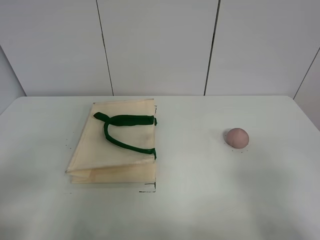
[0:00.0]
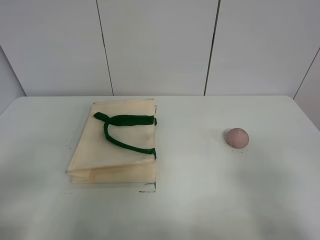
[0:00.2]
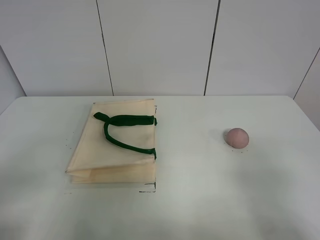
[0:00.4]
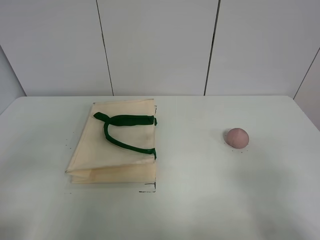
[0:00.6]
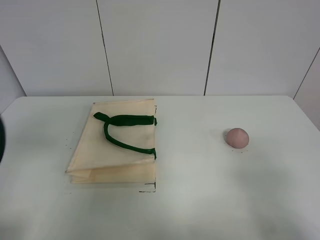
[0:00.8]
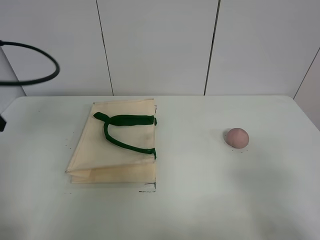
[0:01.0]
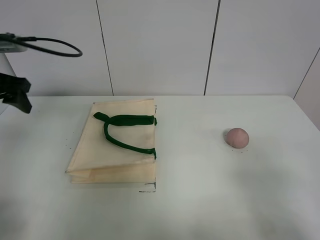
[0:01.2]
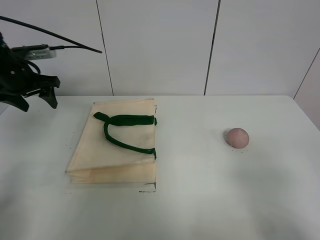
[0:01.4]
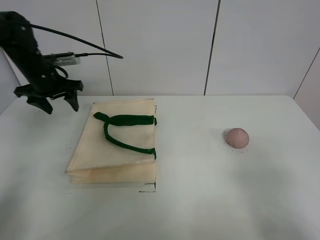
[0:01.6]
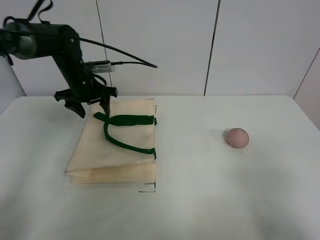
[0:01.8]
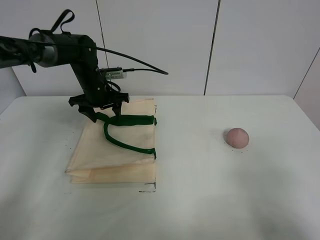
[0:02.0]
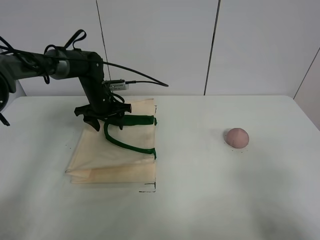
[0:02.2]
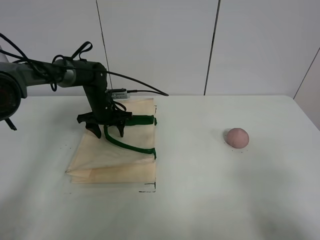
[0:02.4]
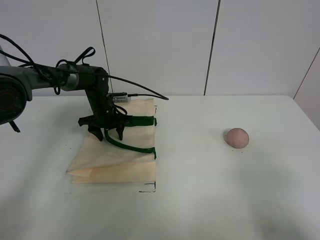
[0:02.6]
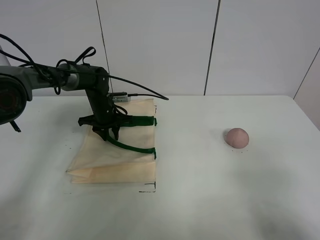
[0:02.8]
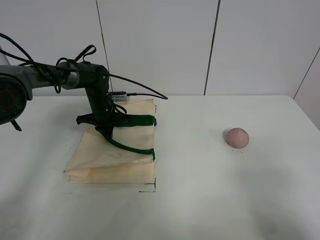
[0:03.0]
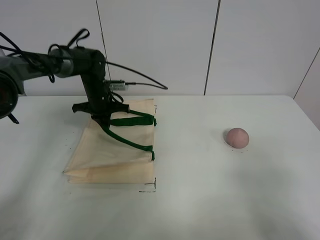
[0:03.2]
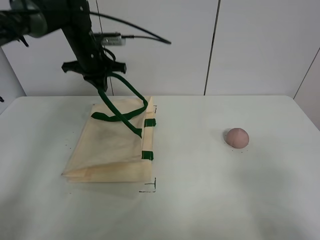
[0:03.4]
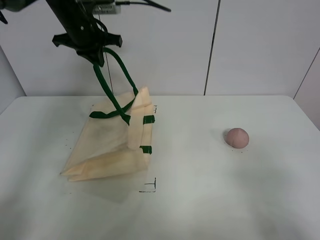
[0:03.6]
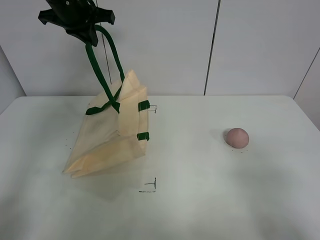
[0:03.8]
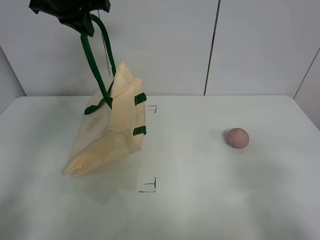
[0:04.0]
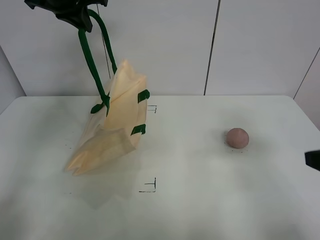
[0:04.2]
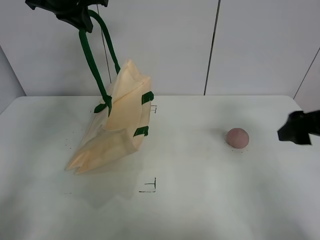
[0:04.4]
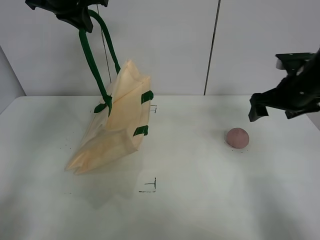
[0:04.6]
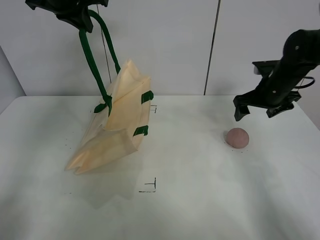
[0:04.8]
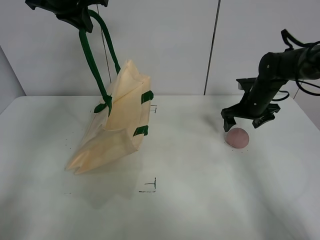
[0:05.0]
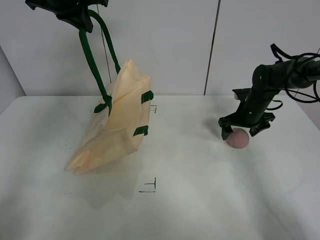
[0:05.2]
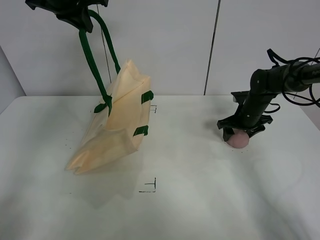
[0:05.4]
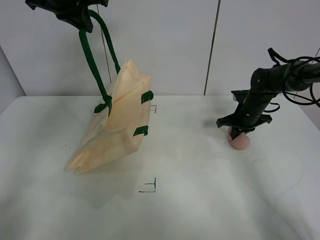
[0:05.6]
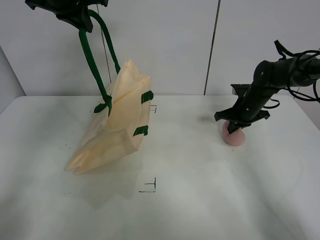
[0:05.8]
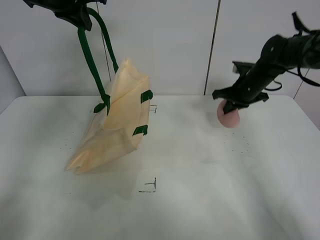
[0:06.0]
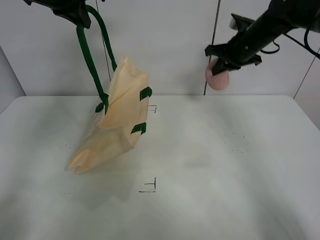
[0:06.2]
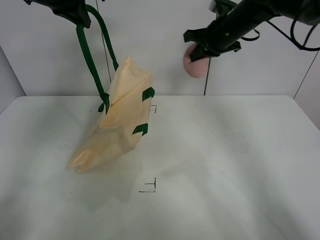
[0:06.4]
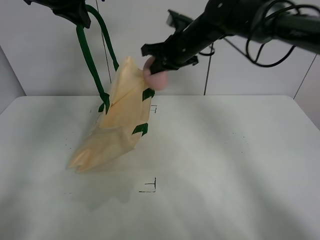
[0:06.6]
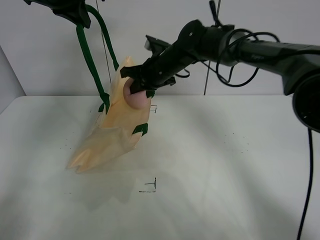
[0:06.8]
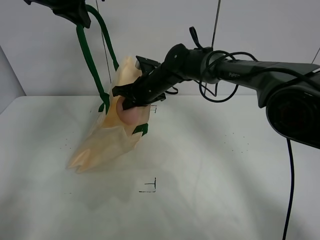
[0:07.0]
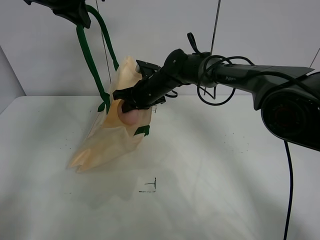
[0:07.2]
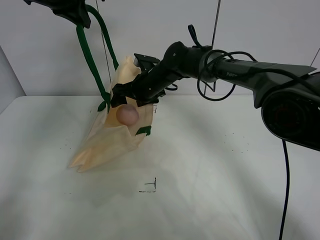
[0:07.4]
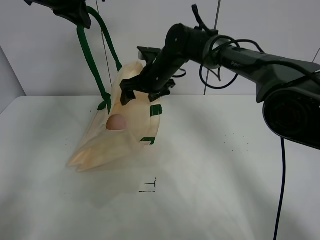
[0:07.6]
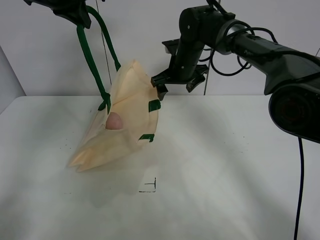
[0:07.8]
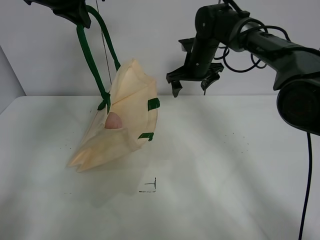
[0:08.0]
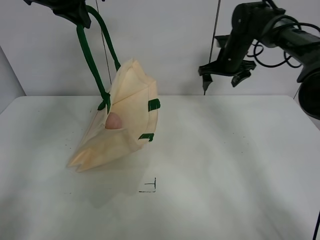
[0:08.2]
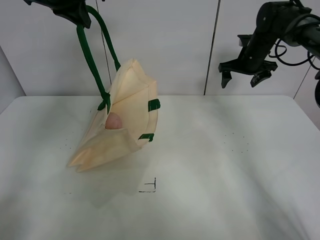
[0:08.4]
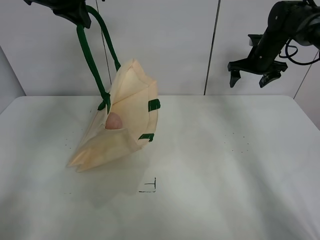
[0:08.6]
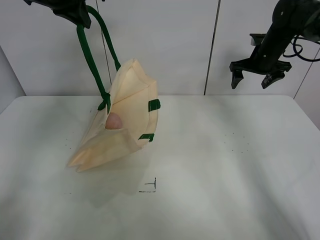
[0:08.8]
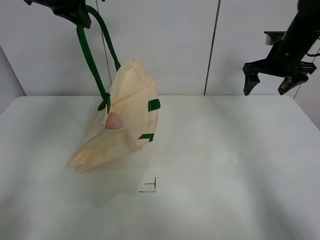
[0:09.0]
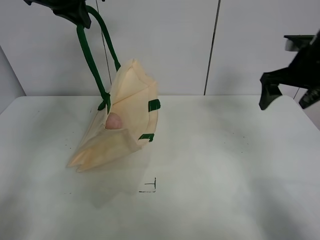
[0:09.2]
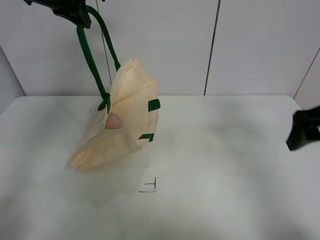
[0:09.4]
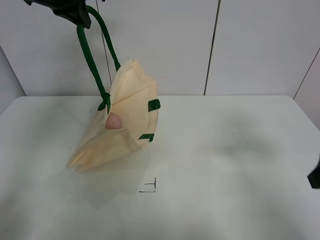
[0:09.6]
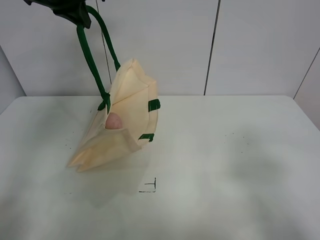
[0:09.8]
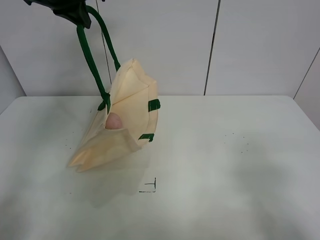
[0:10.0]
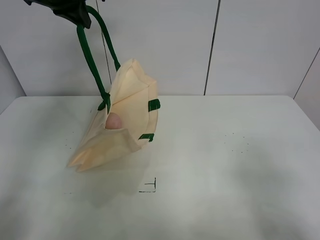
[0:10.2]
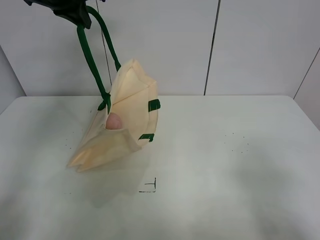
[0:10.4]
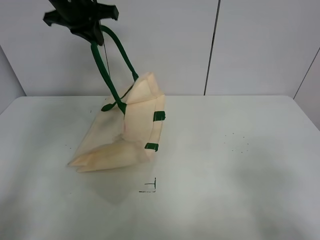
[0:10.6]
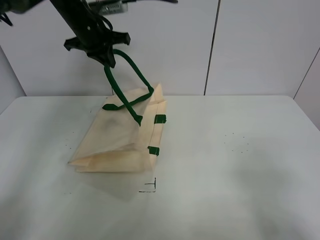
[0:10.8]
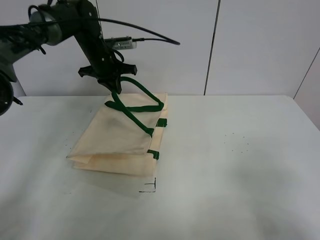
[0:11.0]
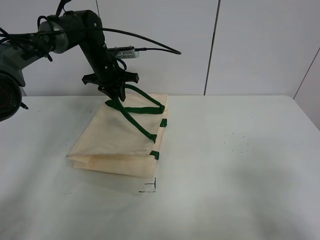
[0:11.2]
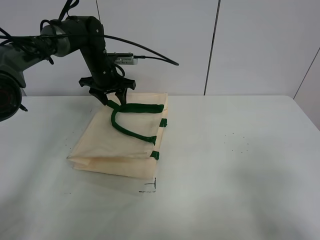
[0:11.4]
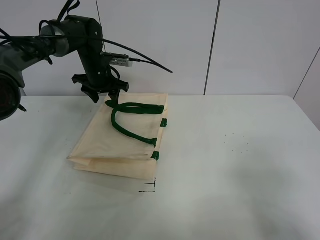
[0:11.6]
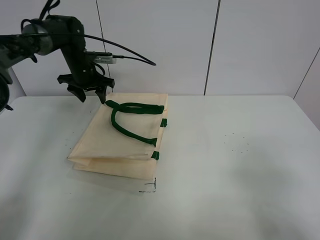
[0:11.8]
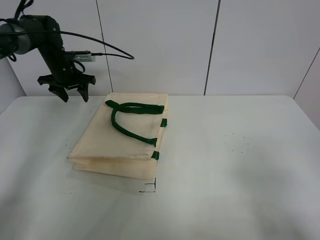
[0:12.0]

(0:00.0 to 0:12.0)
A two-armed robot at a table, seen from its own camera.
Task of the whole recording: open the white linen bag and put the peach in the bag.
Step, 0:00.0 - 0:03.6: Lift the handbag with left gripper.
Step, 0:03.8 - 0:05.6: Grasp the peach with right gripper.
Step, 0:05.8 - 0:07.8: Place the peach in the handbag with right gripper.
Step, 0:08.0 - 0:11.6: Put down the handbag with left gripper.
0:00.0 - 0:01.6: The left gripper is displaced forward by some 40 cm.
0:01.6 - 0:03.0: The left gripper moves downward and to the right, roughly 15 cm, and closes up.
0:03.0 - 0:04.4: The left gripper moves upward, approximately 30 cm; the right gripper moves forward, approximately 25 cm.
0:04.4 - 0:06.0: The right gripper goes about 20 cm forward, and closes its fingers.
0:06.0 - 0:07.6: The right gripper shifts about 20 cm to the left, and opens.
0:07.6 - 0:09.0: The right gripper is displaced to the right by approximately 25 cm.
0:09.0 - 0:10.4: The right gripper is displaced backward by approximately 40 cm.
0:10.4 - 0:12.0: The left gripper goes some 25 cm downward, forward and to the left, and opens.

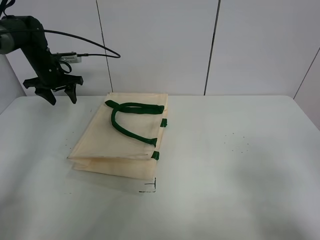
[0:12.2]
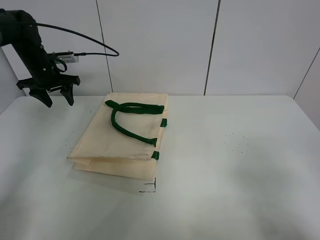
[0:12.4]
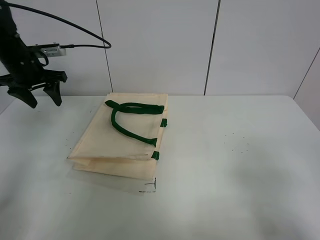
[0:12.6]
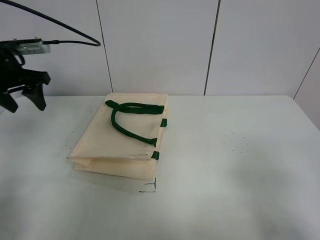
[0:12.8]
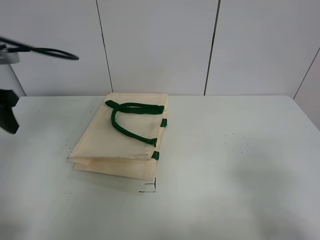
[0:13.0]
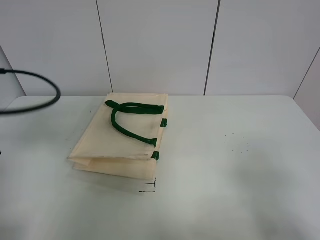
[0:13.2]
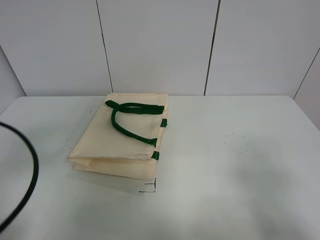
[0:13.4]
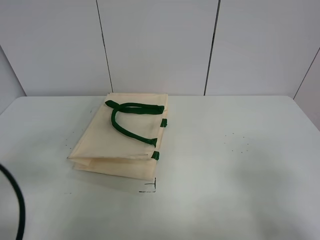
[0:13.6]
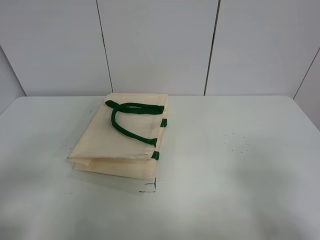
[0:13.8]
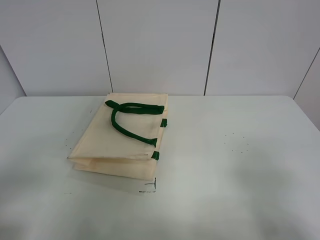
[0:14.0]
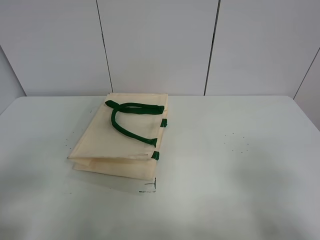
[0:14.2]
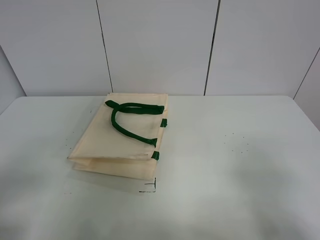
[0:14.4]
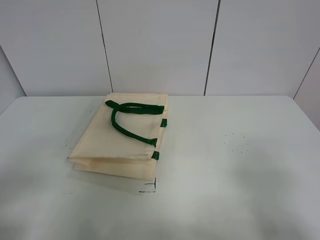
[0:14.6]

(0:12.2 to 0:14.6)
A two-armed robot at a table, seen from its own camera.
Task of the whole recording: open the white linen bag and put the peach in the bag.
0:12.2 - 0:13.4: The left gripper heads backward, covering approximately 40 cm.
0:13.4 - 0:14.6: The left gripper goes approximately 10 cm backward.
